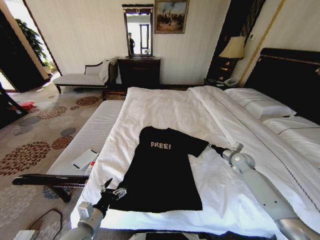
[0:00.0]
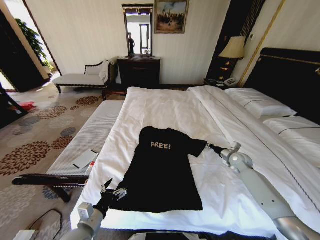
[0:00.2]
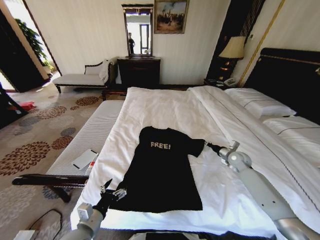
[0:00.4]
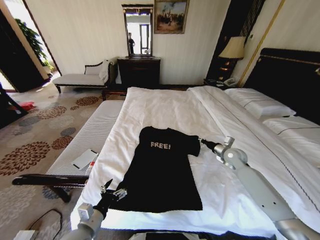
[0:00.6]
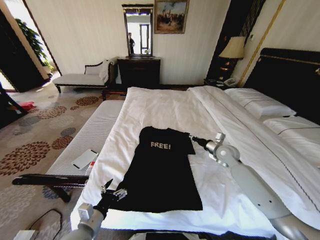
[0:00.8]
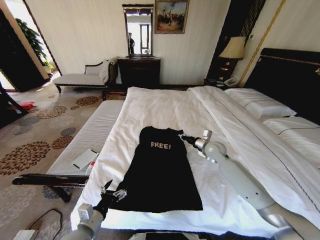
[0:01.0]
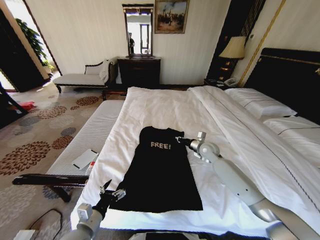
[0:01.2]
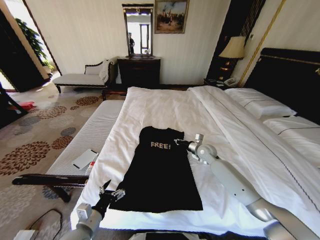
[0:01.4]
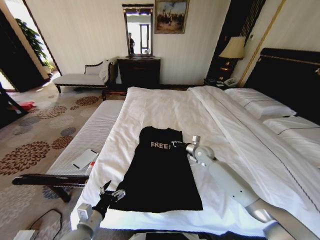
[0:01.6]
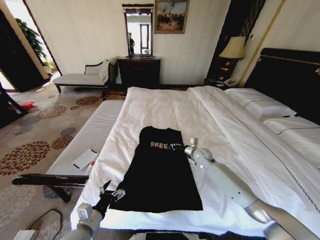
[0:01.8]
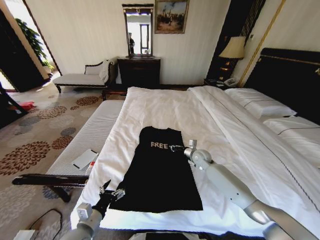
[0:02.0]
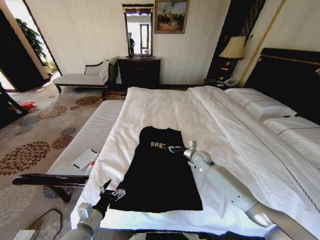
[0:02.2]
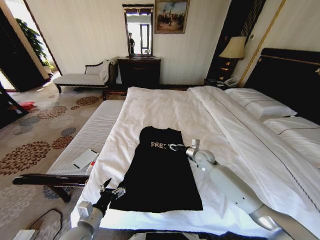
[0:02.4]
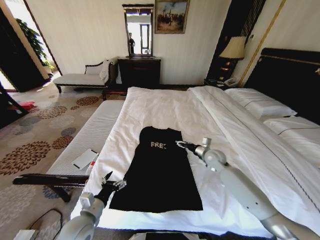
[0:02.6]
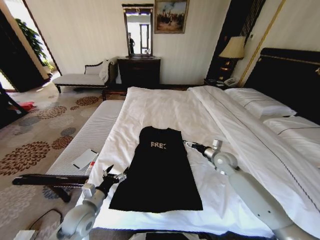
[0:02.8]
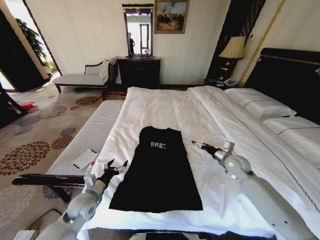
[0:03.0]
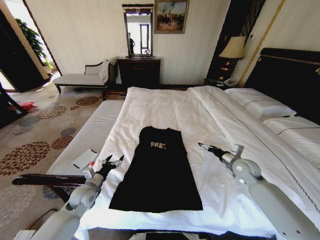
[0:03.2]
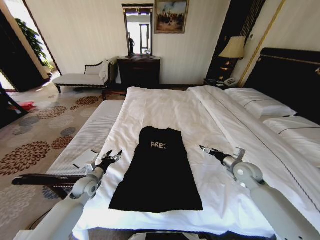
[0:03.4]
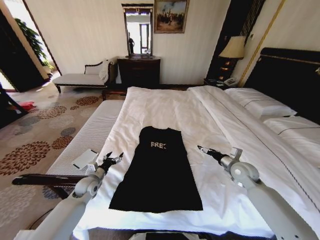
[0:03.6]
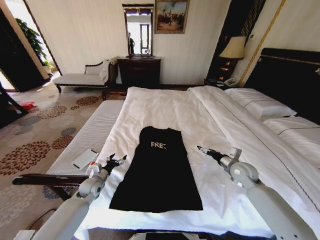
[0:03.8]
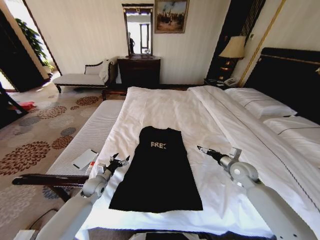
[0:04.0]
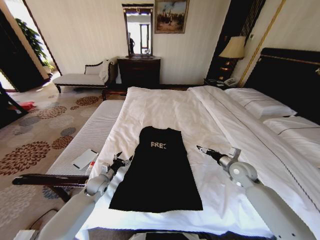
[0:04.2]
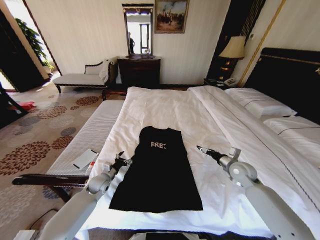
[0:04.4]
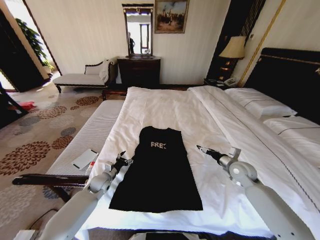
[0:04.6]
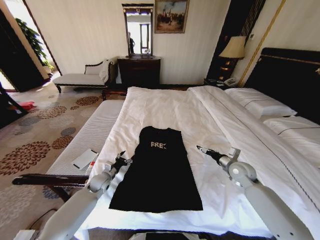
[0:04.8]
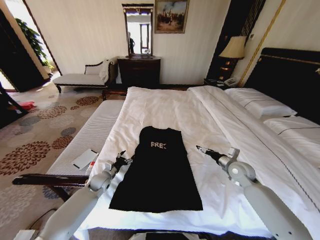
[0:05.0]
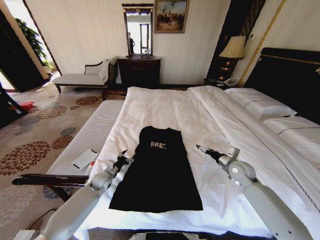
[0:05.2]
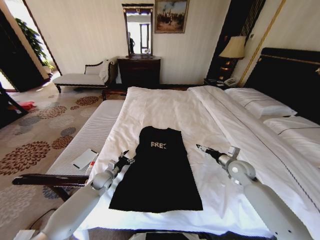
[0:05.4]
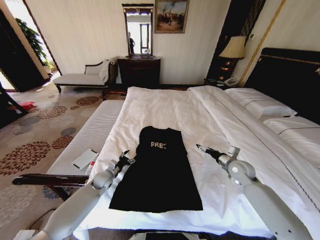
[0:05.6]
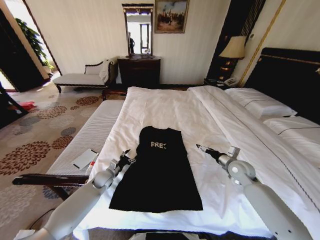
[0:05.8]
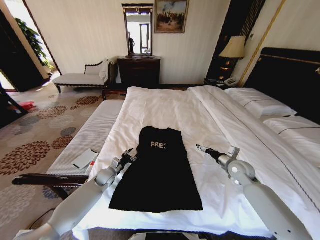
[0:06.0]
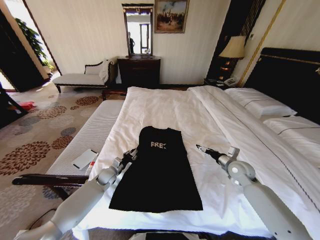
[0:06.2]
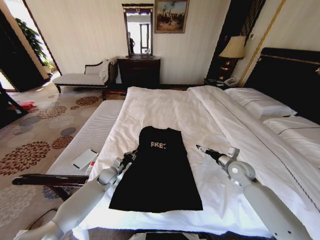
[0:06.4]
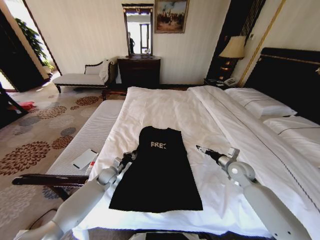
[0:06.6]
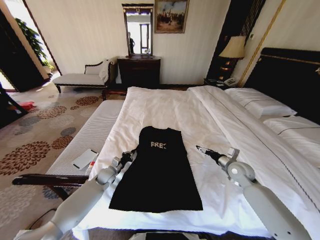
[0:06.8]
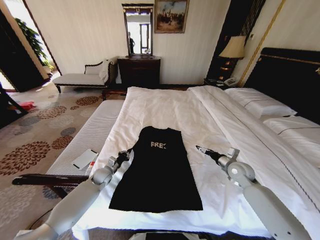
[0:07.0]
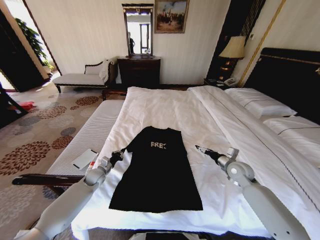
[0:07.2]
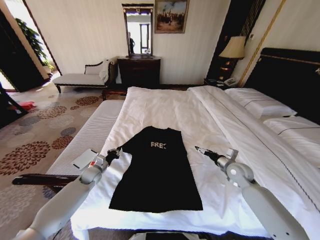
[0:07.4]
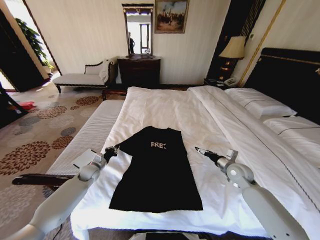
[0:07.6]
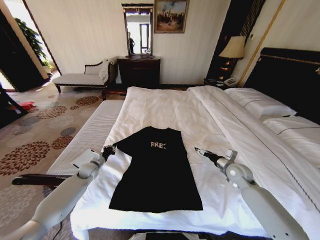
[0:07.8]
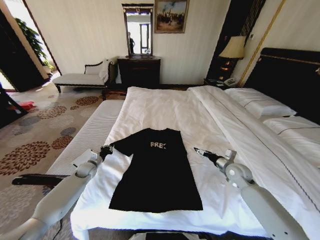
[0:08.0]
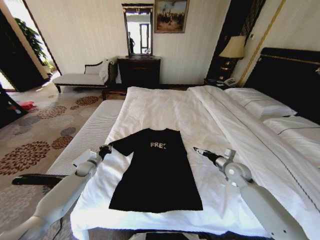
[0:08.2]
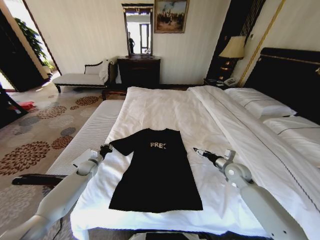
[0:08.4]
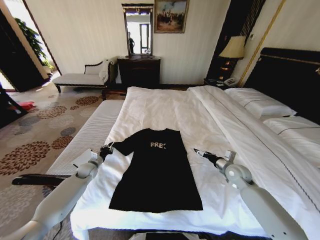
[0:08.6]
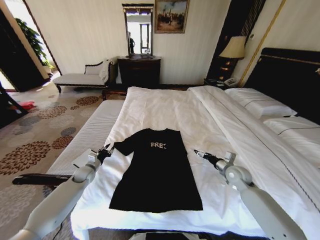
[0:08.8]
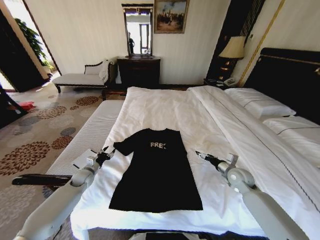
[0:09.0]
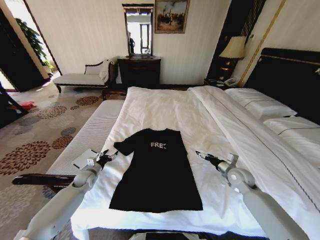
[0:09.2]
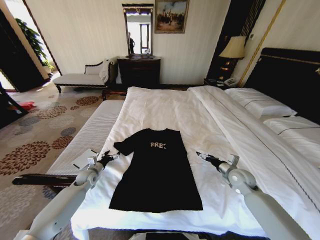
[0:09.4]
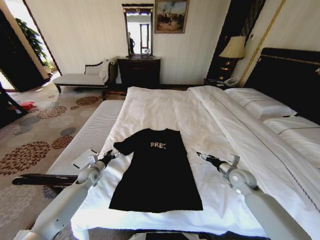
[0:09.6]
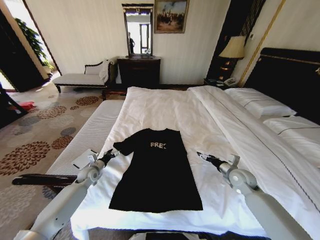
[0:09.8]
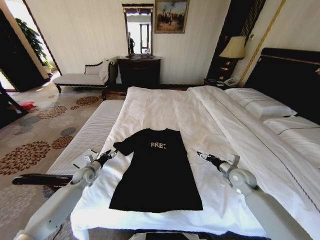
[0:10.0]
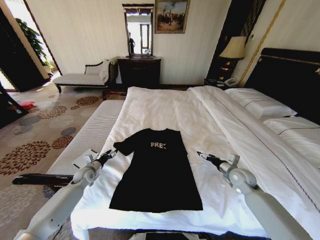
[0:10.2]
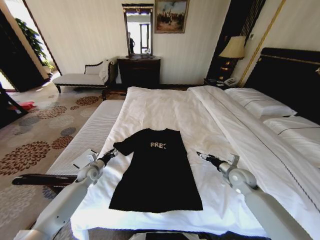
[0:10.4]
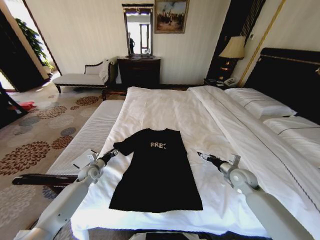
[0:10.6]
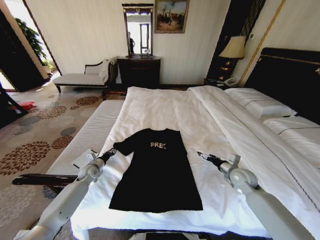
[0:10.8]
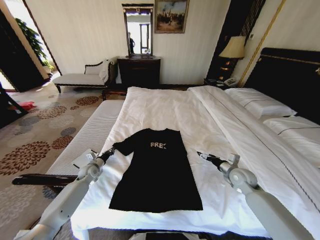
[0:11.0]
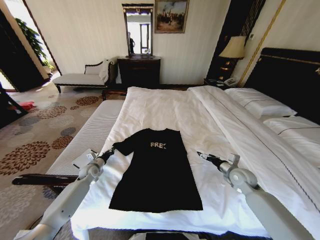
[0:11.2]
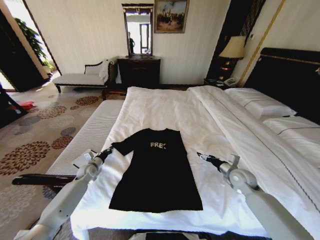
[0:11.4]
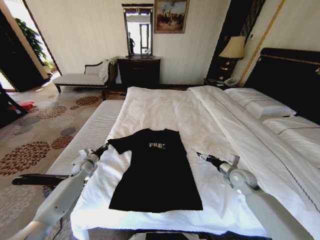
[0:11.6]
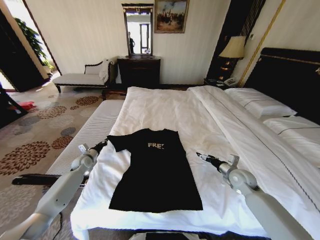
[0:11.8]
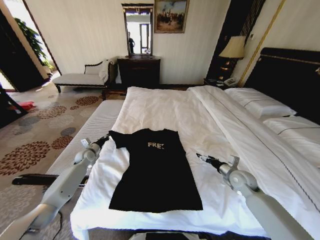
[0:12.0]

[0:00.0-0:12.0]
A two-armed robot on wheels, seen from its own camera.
Task of the whole recording: Fold the clothes on the bed.
0:00.0 to 0:01.6: The right gripper is displaced to the left by some 20 cm.
0:01.6 to 0:03.0: The left gripper heads forward, covering roughly 10 cm. The right gripper shifts some 15 cm to the right and backward, and opens.
0:03.0 to 0:04.4: The left gripper travels forward and downward by approximately 15 cm.
0:04.4 to 0:06.0: There are only small adjustments of the grippers.
0:06.0 to 0:07.6: The left gripper heads to the left, covering roughly 10 cm, and closes.
0:07.6 to 0:09.0: The left gripper opens its fingers.
0:09.0 to 0:10.4: The left gripper opens and closes again.
0:10.4 to 0:12.0: The left gripper travels forward and upward by some 10 cm, and closes.

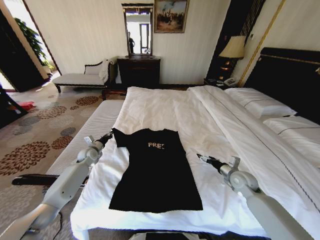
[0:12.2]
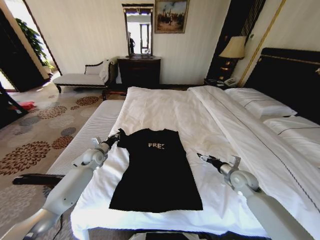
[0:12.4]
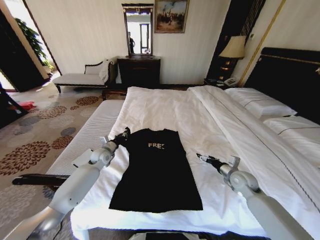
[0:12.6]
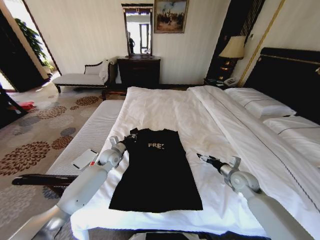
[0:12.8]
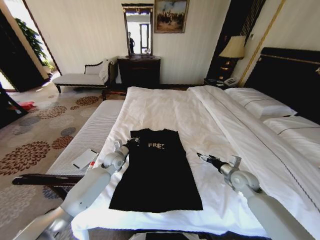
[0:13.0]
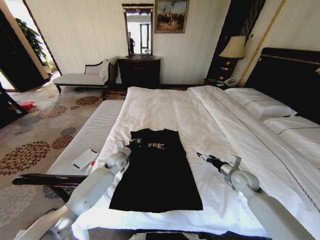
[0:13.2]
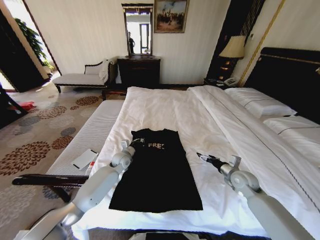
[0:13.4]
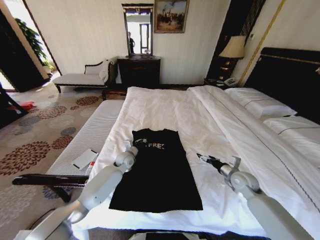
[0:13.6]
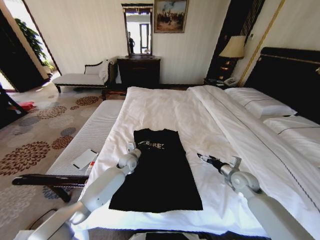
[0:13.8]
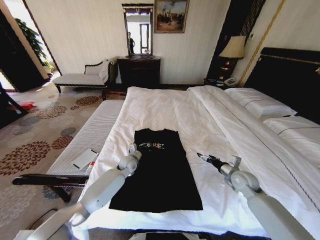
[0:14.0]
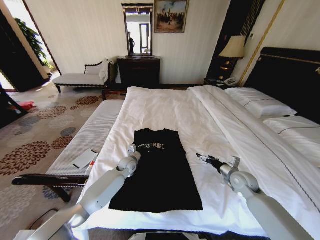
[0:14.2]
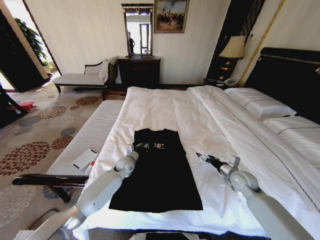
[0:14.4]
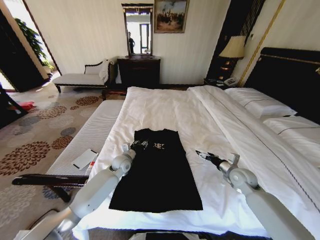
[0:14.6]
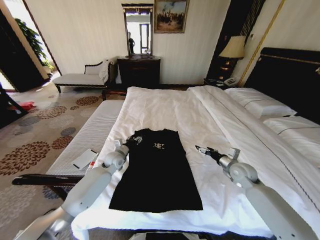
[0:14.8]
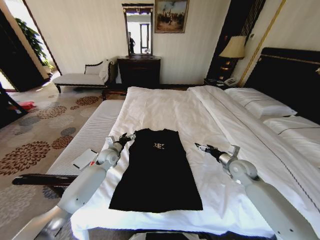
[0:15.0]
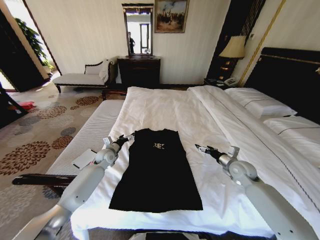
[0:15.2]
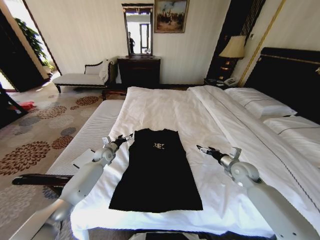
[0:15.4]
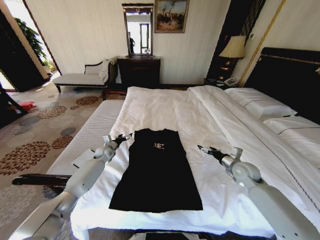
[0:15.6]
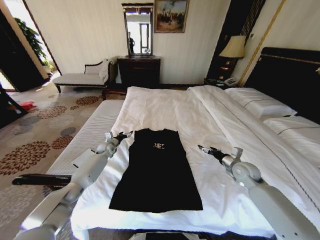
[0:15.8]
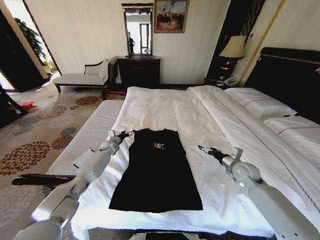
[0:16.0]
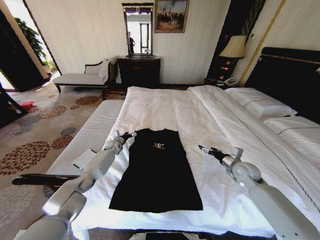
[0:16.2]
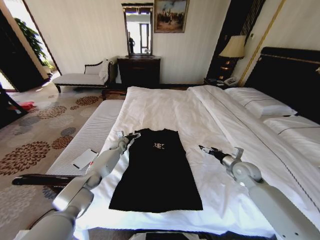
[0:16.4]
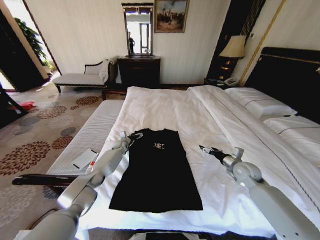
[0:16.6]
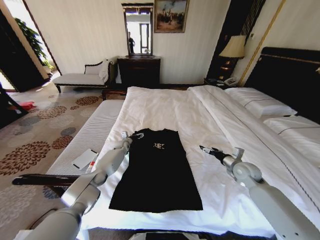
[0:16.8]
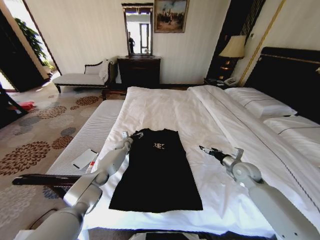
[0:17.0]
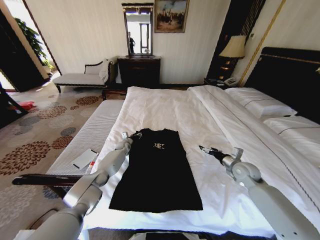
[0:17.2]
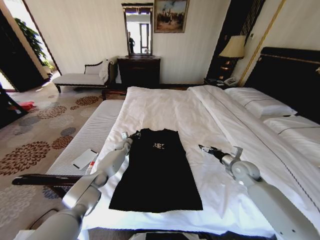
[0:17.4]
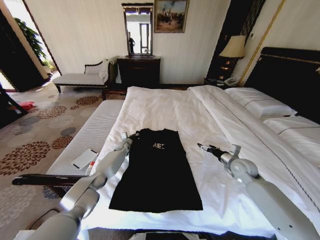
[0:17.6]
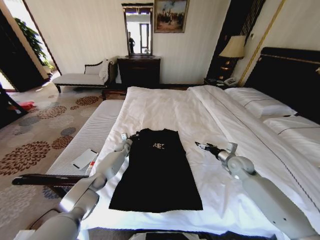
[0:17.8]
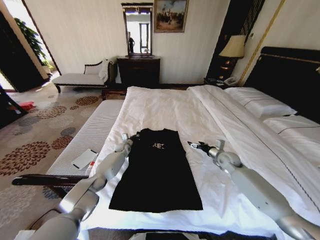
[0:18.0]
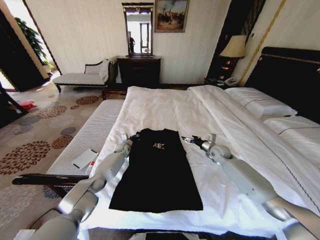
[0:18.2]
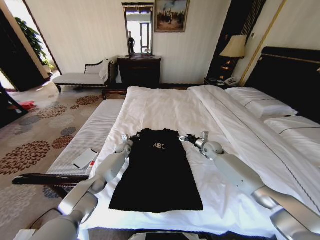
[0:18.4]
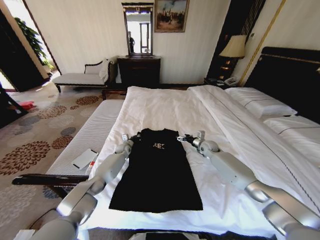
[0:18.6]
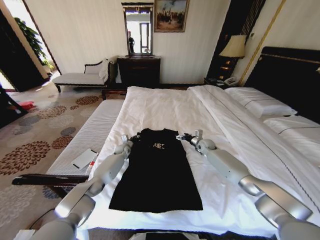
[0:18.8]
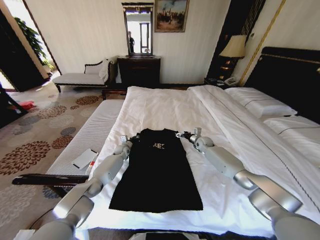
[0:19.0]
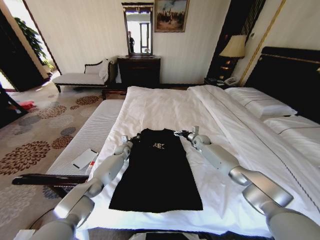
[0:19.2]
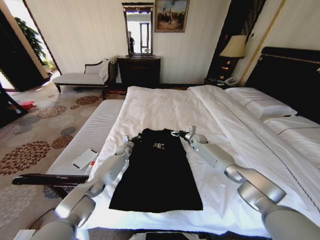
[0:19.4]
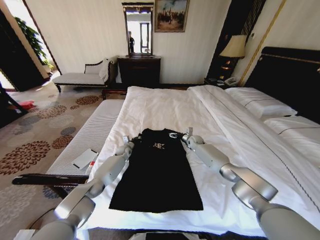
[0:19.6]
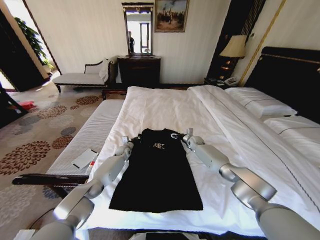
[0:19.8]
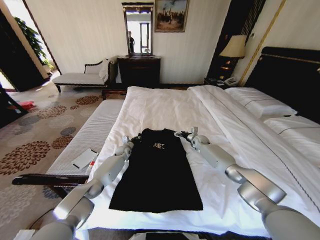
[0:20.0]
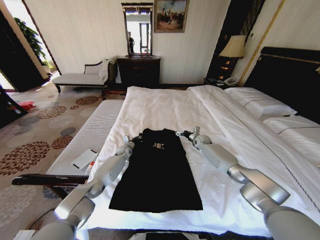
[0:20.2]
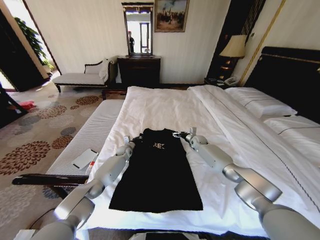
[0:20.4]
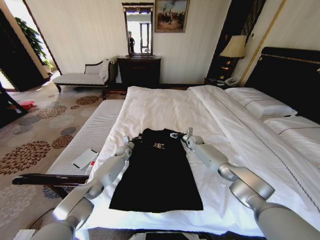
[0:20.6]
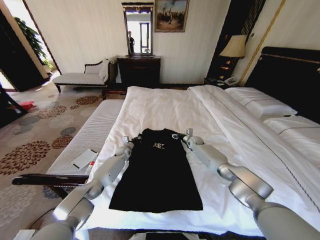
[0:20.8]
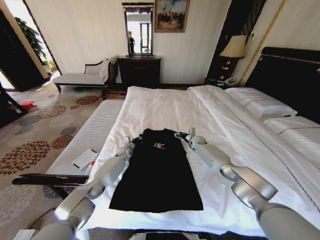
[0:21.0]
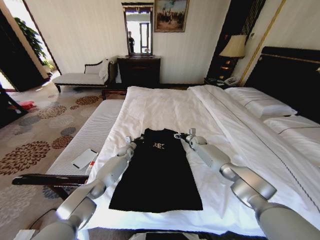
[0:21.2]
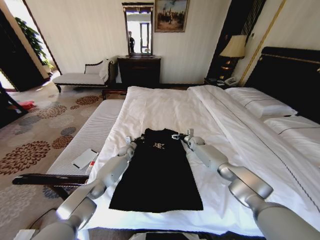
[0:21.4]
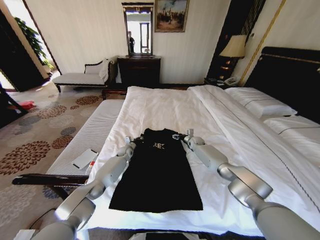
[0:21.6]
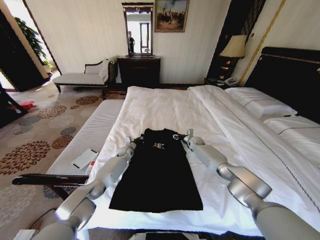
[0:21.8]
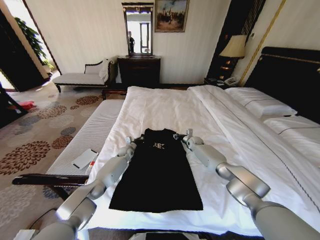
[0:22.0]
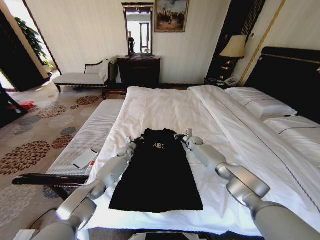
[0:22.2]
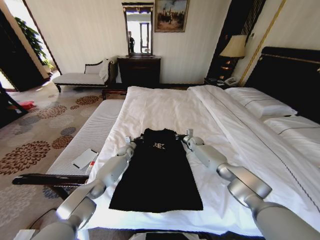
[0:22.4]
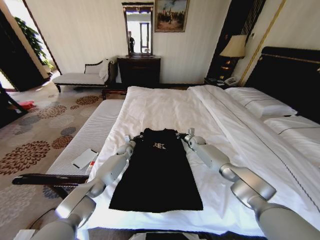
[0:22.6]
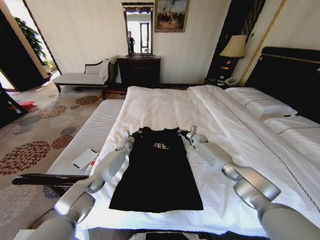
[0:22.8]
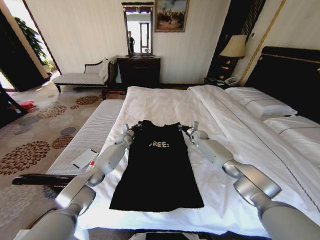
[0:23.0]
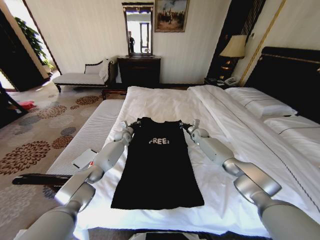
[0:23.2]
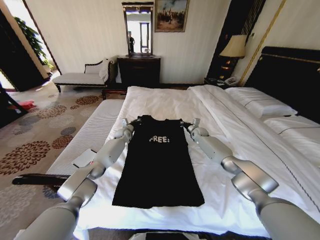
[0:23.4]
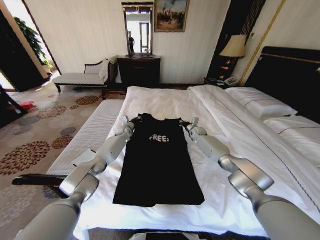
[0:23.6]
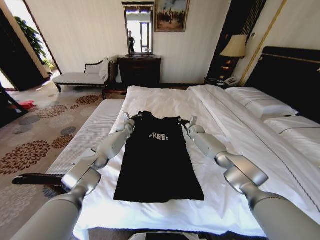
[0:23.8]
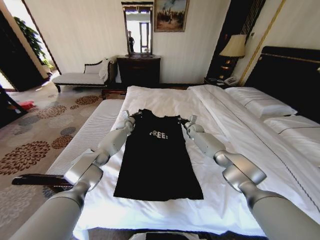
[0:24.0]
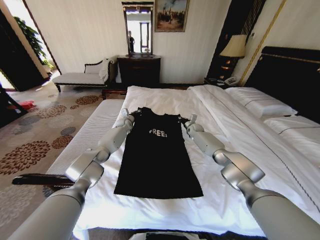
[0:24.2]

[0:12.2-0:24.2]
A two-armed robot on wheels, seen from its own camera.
Task of the whole recording: Fold the clothes on the bed.
0:12.2 to 0:13.8: The left gripper travels to the right by some 25 cm.
0:13.8 to 0:15.2: The left gripper goes approximately 10 cm to the left, and opens up.
0:15.2 to 0:16.6: The left gripper heads forward and downward, covering approximately 15 cm.
0:16.6 to 0:18.2: The right gripper moves forward, approximately 10 cm, while the left gripper closes up.
0:18.2 to 0:19.8: The right gripper moves forward and to the left, about 15 cm.
0:19.8 to 0:21.2: The grippers move only a little.
0:21.2 to 0:22.6: The right gripper closes up.
0:22.6 to 0:24.2: The right gripper shifts roughly 10 cm upward and forward; the left gripper shifts approximately 20 cm upward and forward.
